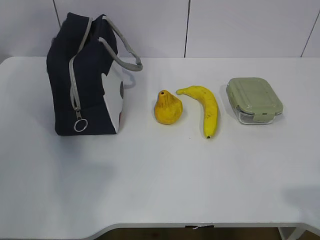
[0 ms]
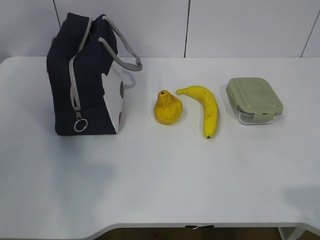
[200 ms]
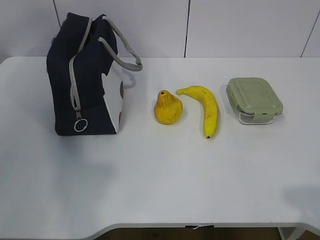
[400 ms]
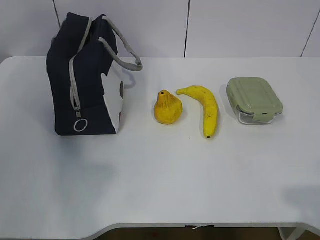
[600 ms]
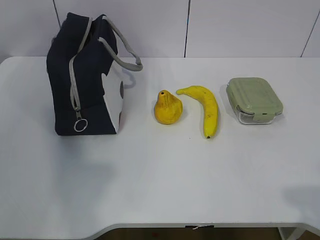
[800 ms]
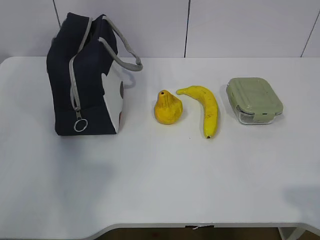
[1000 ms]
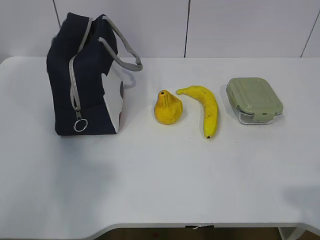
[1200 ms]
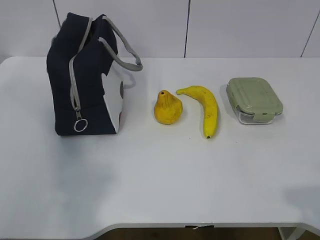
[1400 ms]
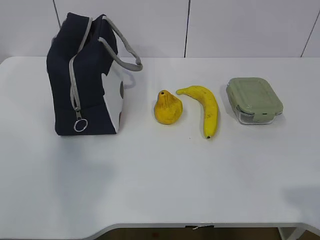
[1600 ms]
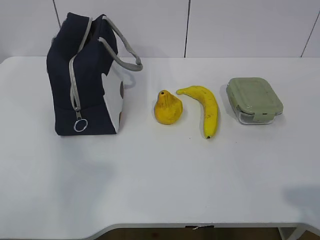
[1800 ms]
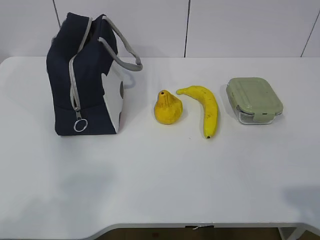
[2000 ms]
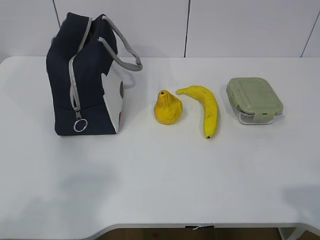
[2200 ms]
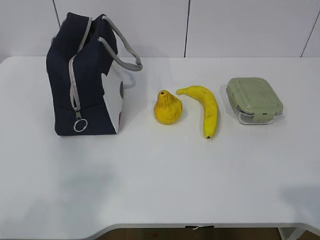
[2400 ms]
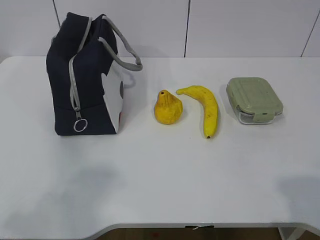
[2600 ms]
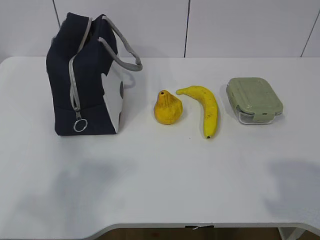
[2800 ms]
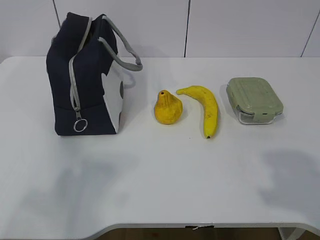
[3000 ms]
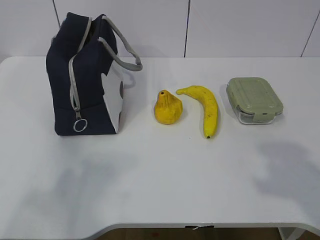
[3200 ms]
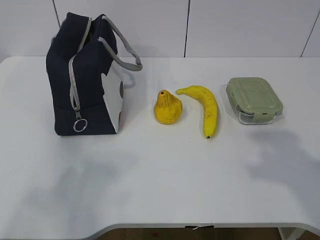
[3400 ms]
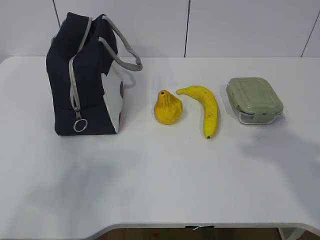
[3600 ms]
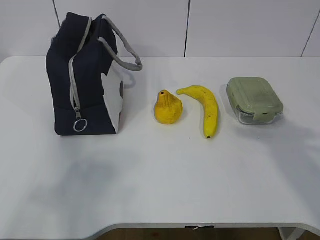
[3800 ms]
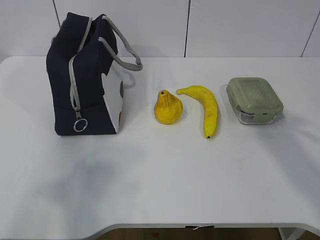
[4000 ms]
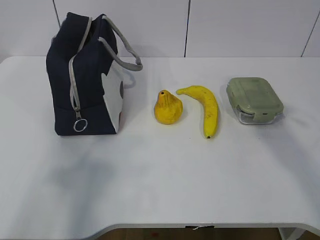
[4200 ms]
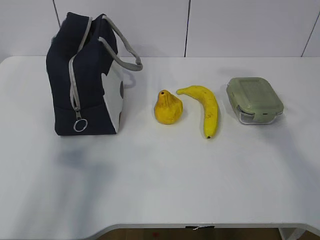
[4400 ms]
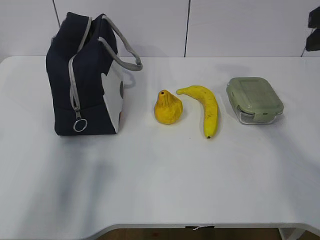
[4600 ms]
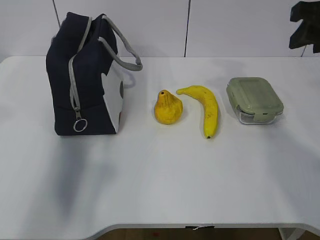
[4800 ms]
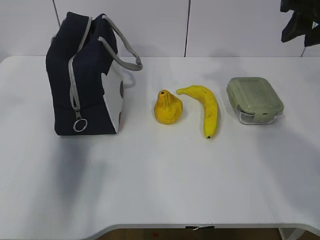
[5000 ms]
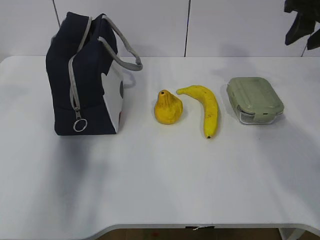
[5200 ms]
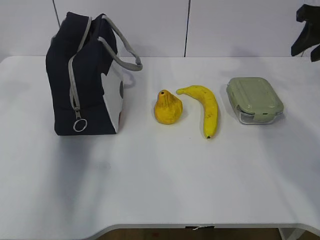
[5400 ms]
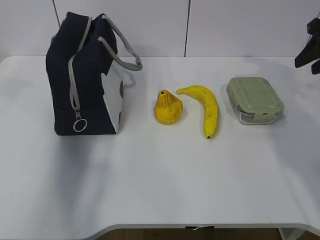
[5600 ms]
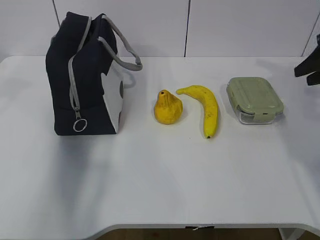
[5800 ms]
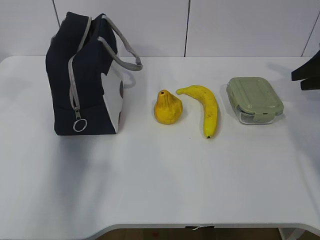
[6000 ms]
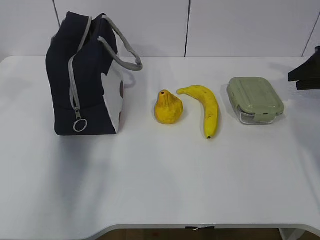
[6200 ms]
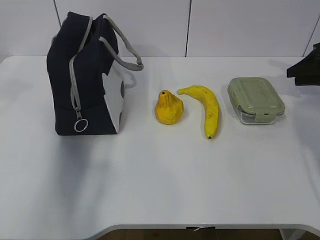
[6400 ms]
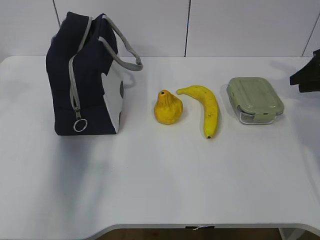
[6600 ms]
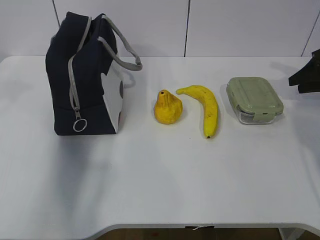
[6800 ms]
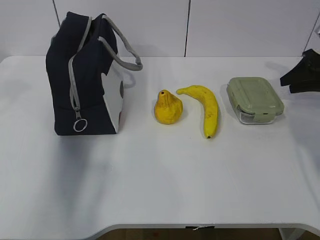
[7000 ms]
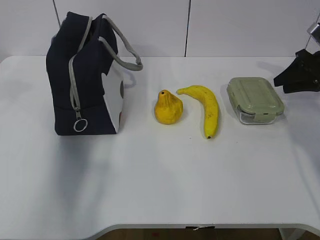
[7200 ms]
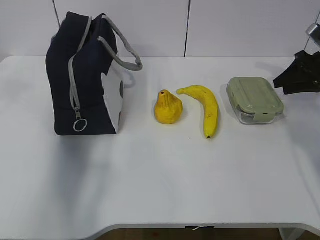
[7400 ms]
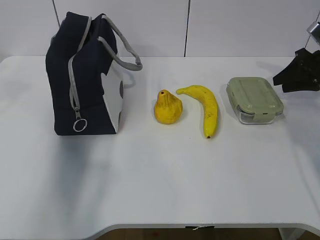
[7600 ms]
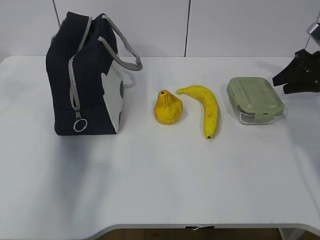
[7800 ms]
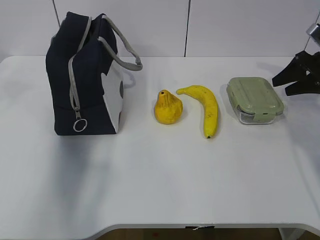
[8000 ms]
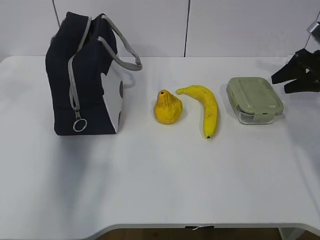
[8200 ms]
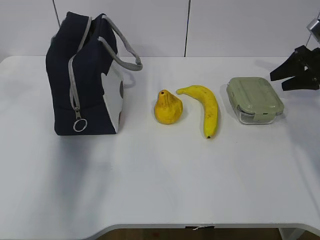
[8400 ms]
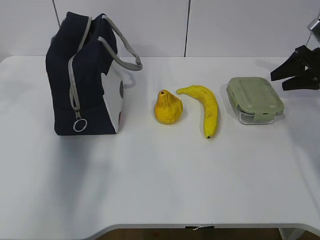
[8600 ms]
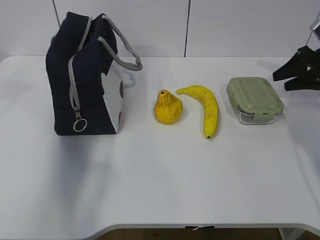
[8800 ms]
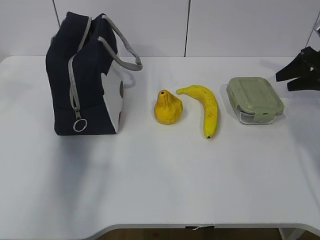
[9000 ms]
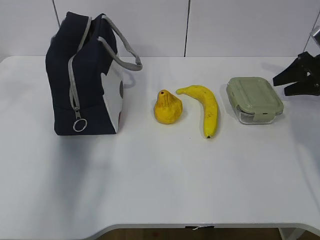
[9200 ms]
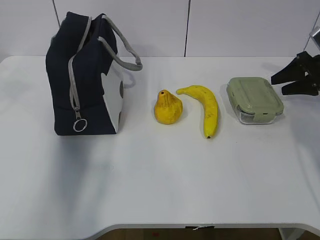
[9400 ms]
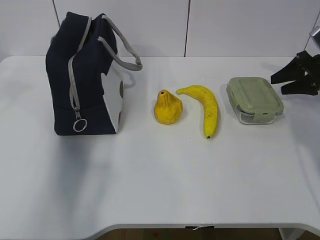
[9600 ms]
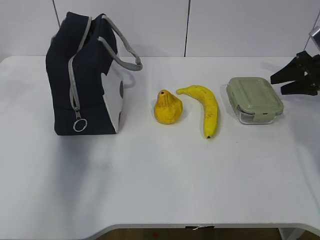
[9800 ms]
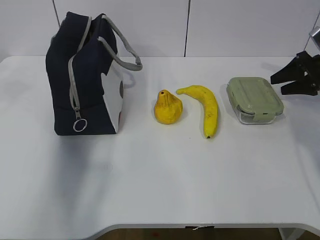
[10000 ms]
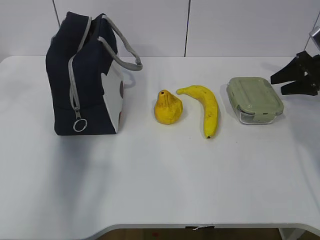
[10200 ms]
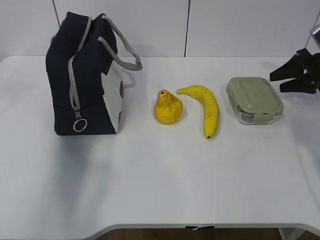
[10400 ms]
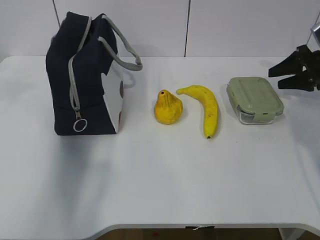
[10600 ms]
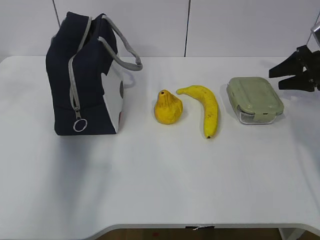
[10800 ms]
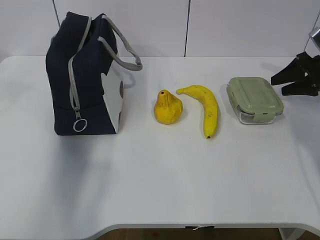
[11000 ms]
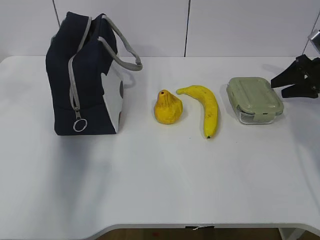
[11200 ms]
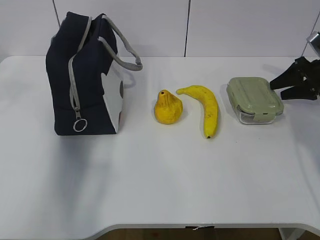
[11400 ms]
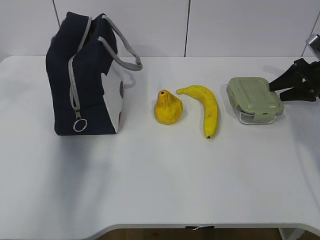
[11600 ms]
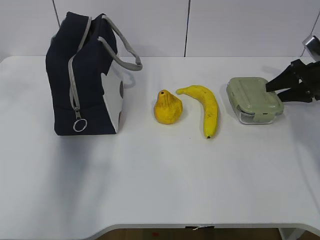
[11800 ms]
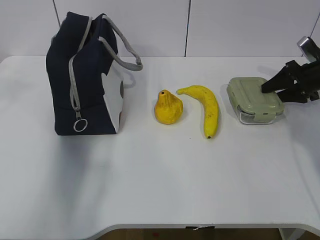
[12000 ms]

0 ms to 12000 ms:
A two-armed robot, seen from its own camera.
1600 ms to 3000 ms: The right gripper moves roughly 5 cm.
3000 ms to 4400 ms: The right gripper is displaced forward by some 20 cm, while the left gripper heads forward, covering approximately 5 cm.
4400 ms to 6000 ms: The left gripper is displaced forward by approximately 20 cm, while the right gripper travels forward, to the right and downward by about 25 cm.
6000 ms to 7600 ms: The right gripper changes place by approximately 5 cm.
7600 ms to 9000 ms: The two grippers keep their place.
10400 ms to 12000 ms: The grippers stay close to where they were, moving slightly.

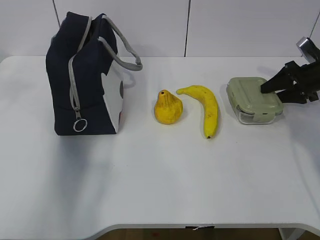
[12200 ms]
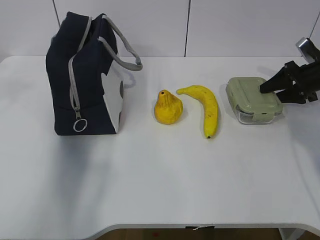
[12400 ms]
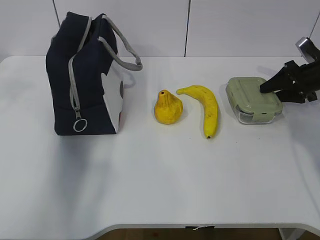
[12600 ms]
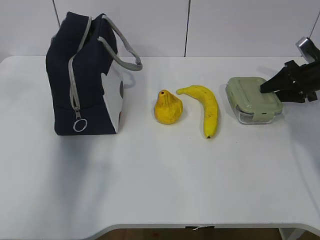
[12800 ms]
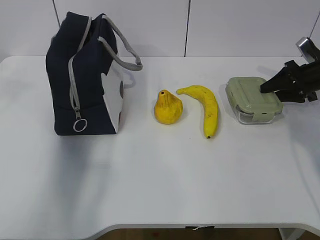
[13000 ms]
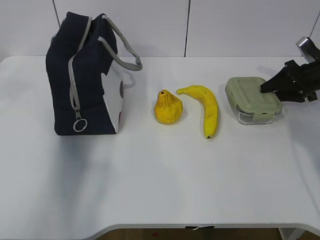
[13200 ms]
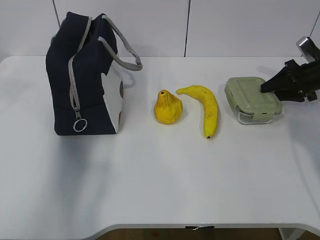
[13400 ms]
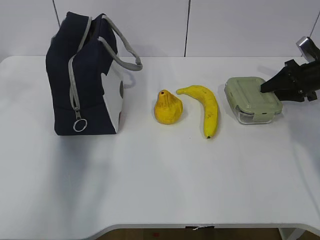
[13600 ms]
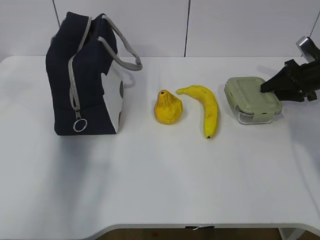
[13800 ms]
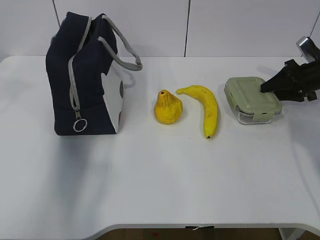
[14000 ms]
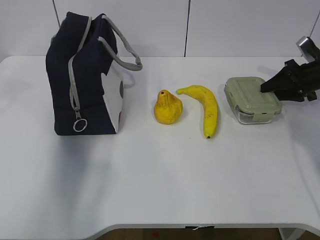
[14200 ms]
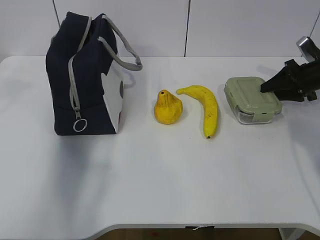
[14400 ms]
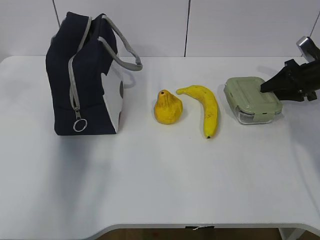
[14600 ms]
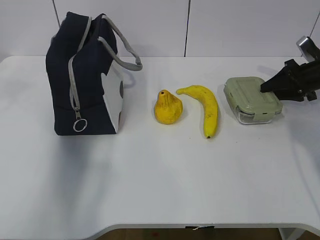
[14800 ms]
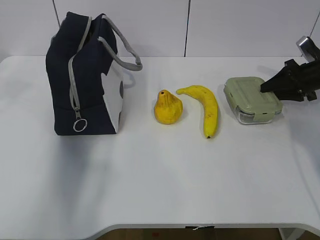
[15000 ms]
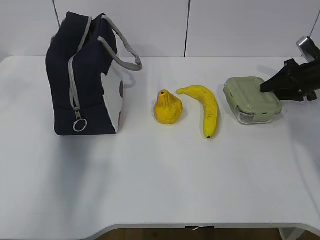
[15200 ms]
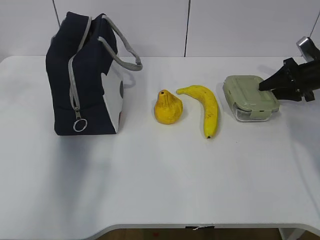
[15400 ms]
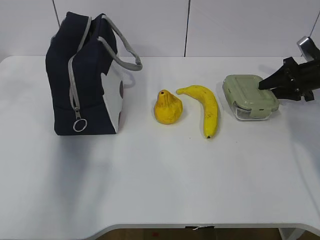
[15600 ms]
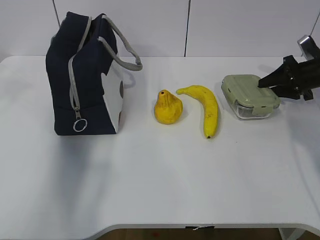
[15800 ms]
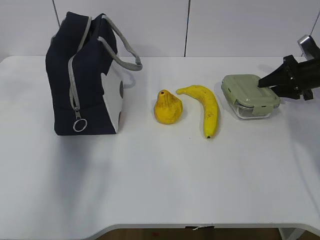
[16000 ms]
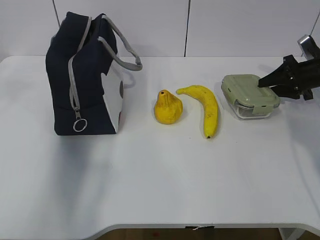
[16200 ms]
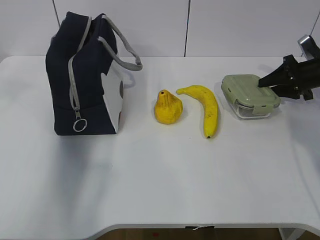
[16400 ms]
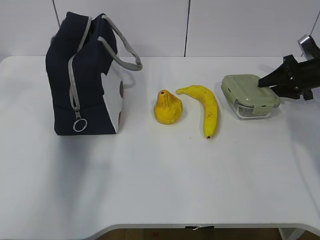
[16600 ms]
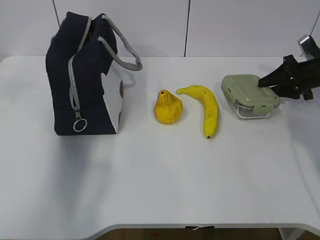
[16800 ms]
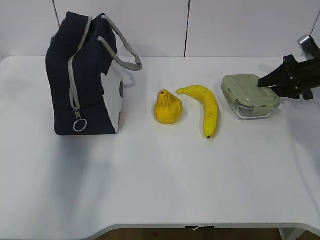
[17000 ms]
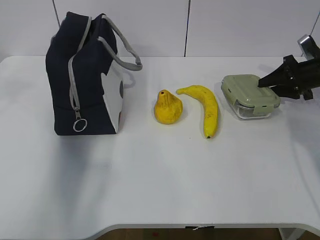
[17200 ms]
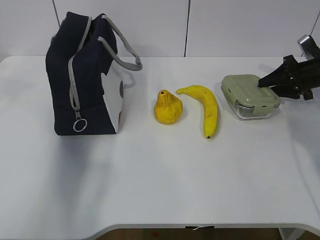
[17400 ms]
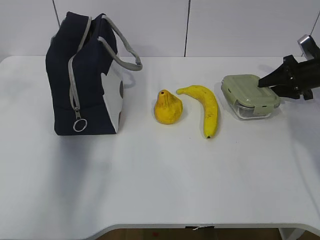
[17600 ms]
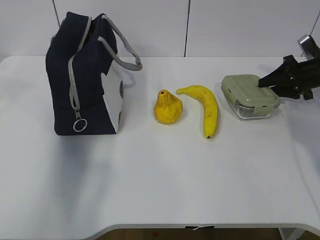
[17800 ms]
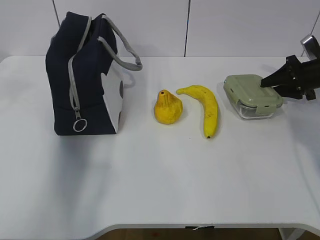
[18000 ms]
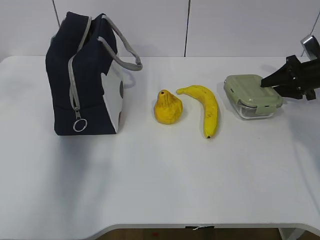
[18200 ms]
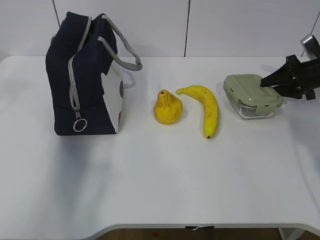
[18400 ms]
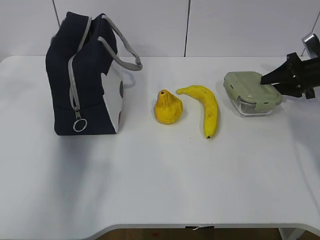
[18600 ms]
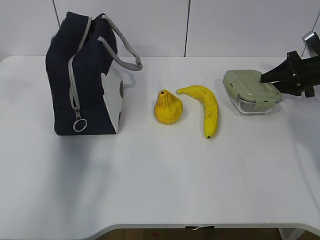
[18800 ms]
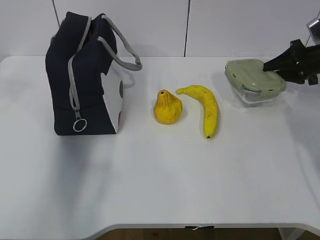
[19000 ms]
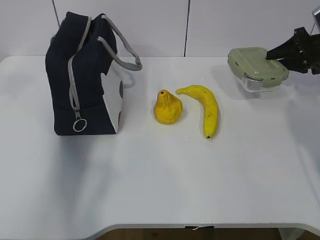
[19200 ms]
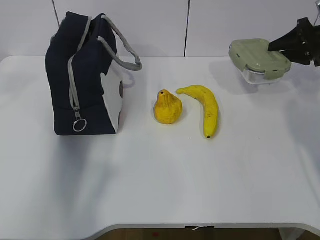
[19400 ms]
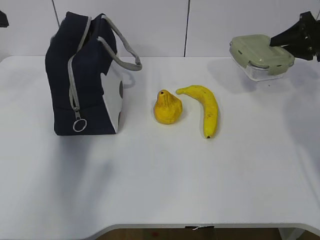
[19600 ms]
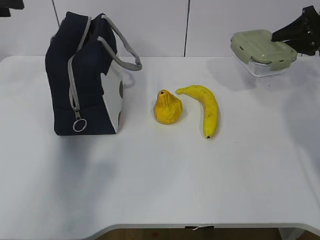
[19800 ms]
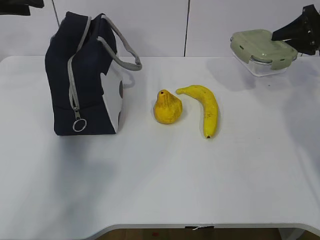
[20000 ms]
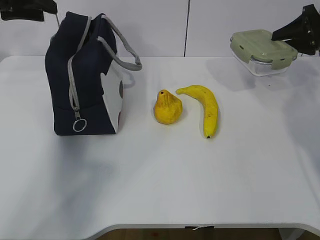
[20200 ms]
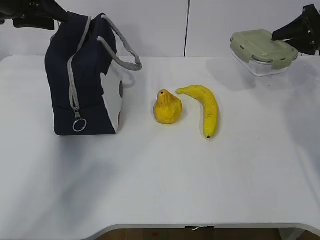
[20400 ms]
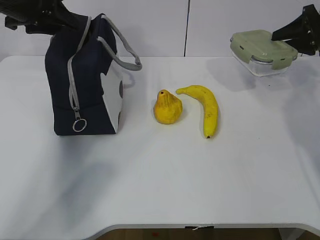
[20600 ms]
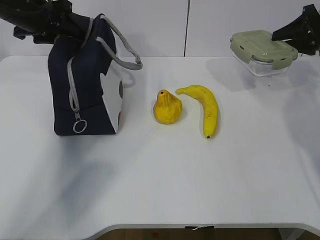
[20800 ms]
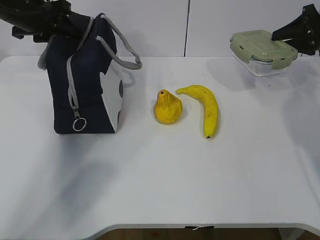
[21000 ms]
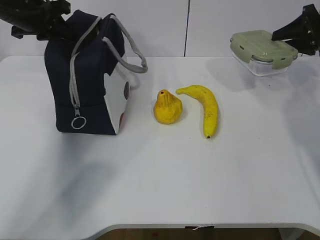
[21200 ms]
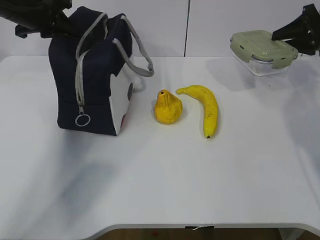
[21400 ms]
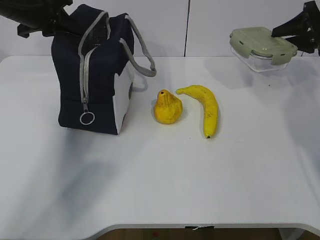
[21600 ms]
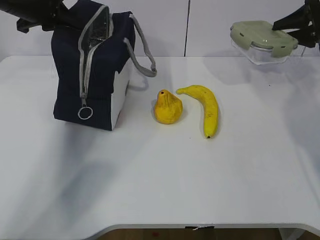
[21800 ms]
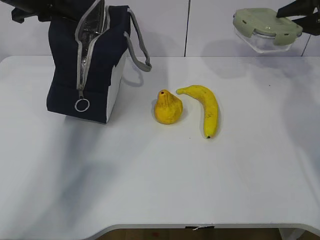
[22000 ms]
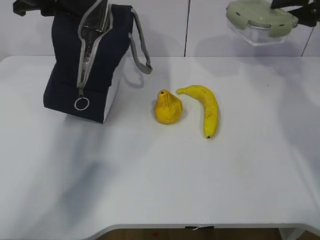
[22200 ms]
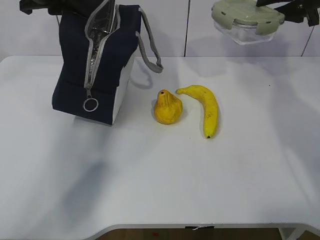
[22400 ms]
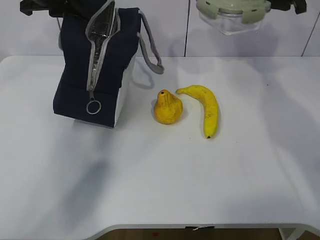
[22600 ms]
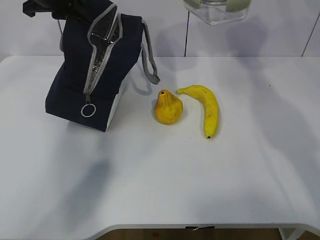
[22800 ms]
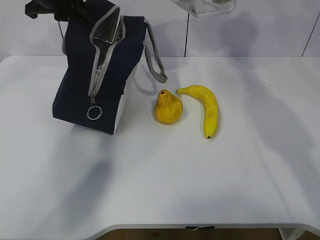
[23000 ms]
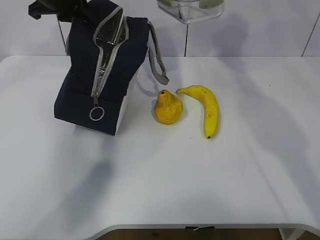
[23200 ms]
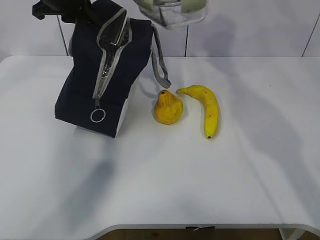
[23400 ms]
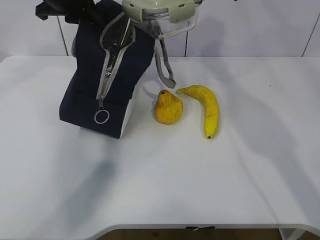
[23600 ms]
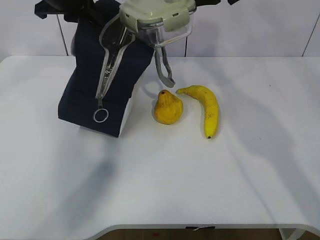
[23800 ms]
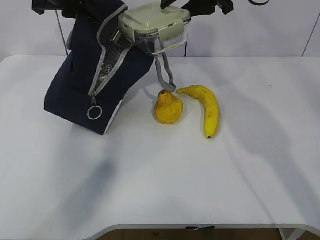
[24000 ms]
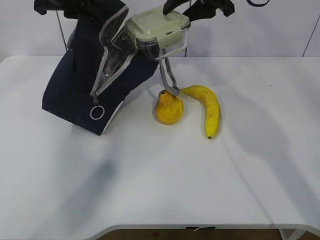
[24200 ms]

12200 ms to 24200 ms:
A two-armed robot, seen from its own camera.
Step, 15000 ms to 21000 ms: Grasp the package with the left gripper.
12200 ms to 15200 ms: Both grippers stay put.
15200 ms to 16600 ms: The grippers stay close to where they were, moving slightly.
16600 ms to 18200 ms: The two grippers keep their place.
18200 ms to 19800 ms: The left gripper moves forward, about 5 cm; the right gripper is displaced upward by roughly 10 cm.
19800 ms to 21200 ms: The left gripper is displaced forward and downward by approximately 15 cm, and closes.
21200 ms to 22600 ms: The left gripper moves about 5 cm. The right gripper moves upward and to the left, about 15 cm.
22600 ms to 24200 ms: The right gripper heads to the left, covering some 15 cm.
